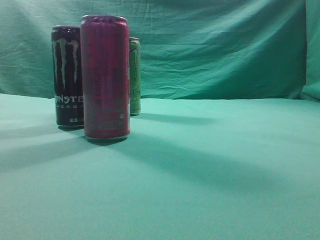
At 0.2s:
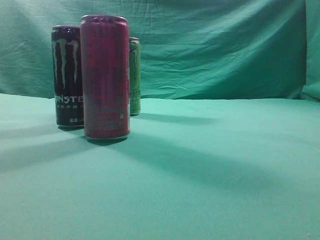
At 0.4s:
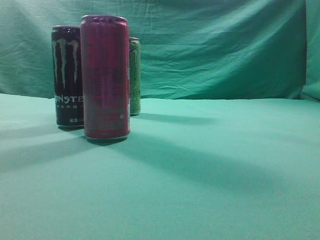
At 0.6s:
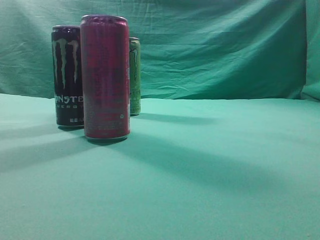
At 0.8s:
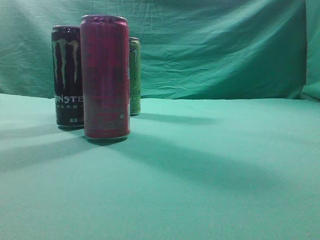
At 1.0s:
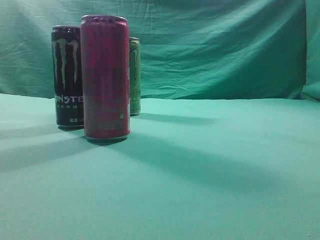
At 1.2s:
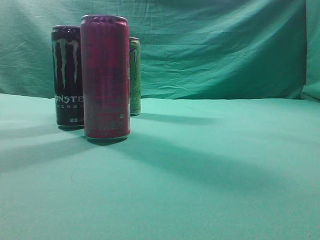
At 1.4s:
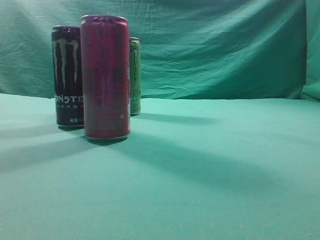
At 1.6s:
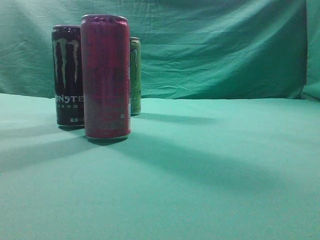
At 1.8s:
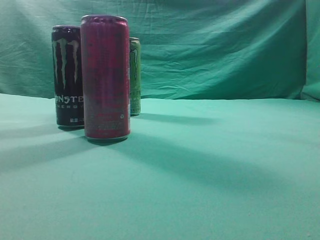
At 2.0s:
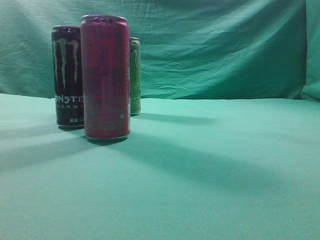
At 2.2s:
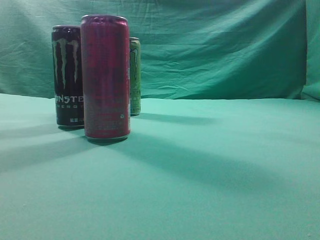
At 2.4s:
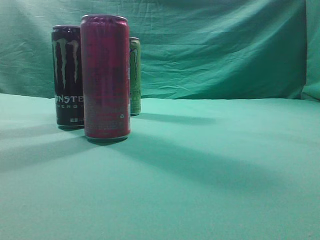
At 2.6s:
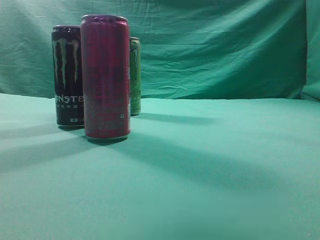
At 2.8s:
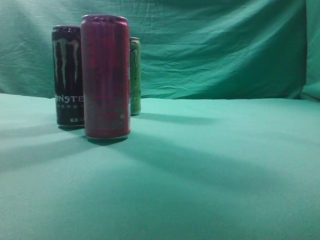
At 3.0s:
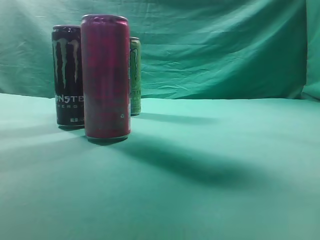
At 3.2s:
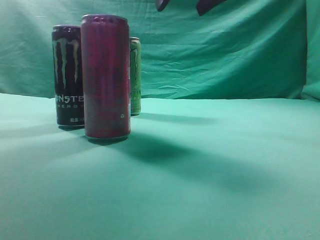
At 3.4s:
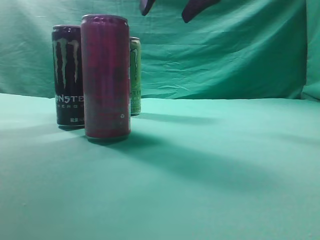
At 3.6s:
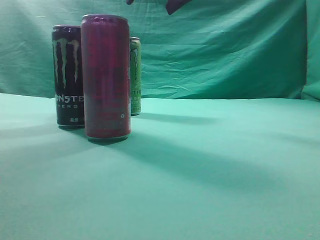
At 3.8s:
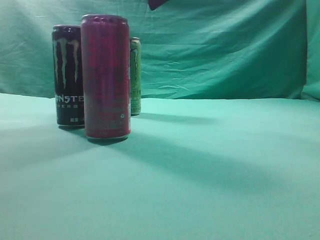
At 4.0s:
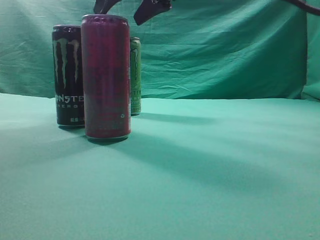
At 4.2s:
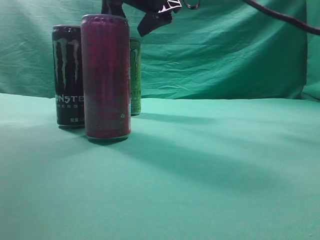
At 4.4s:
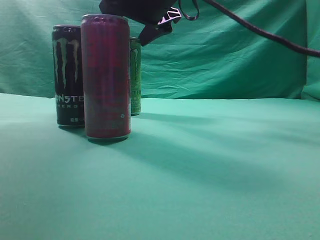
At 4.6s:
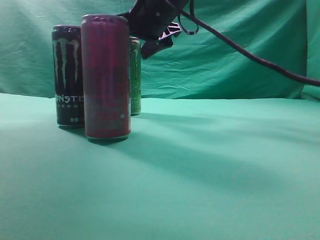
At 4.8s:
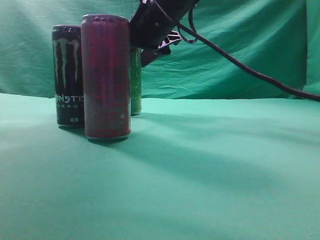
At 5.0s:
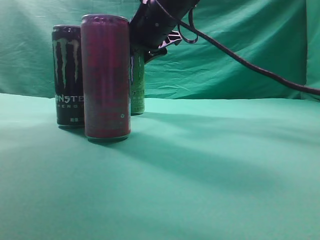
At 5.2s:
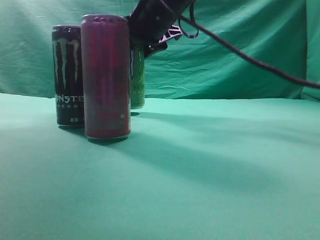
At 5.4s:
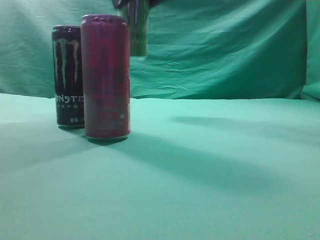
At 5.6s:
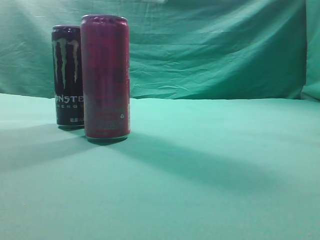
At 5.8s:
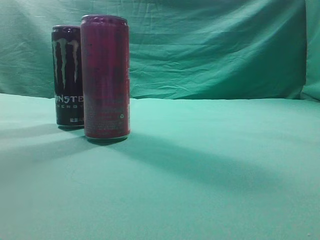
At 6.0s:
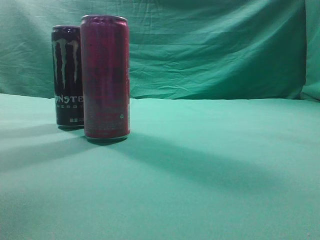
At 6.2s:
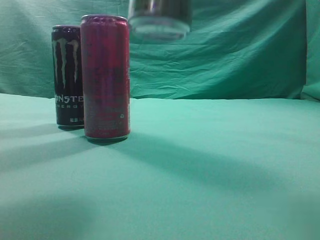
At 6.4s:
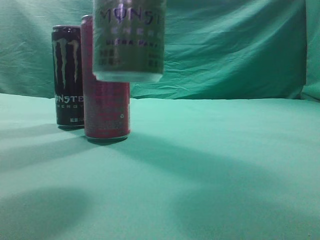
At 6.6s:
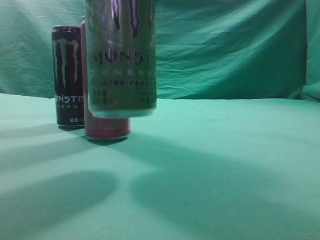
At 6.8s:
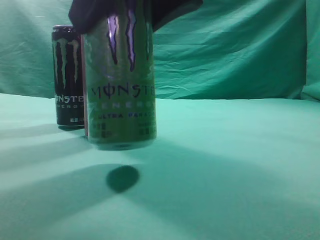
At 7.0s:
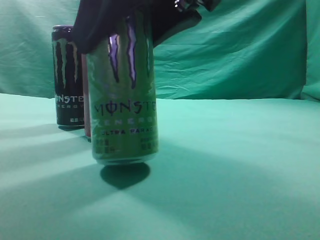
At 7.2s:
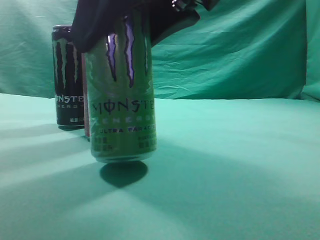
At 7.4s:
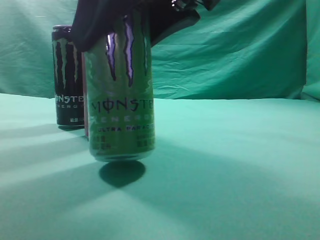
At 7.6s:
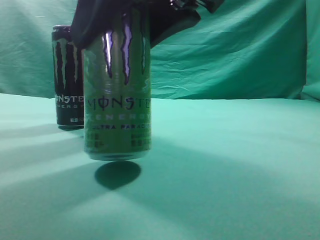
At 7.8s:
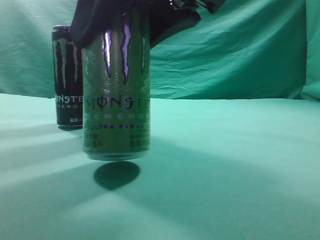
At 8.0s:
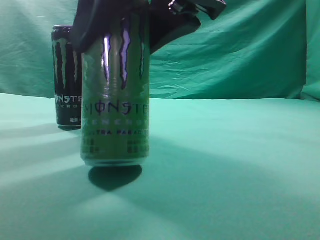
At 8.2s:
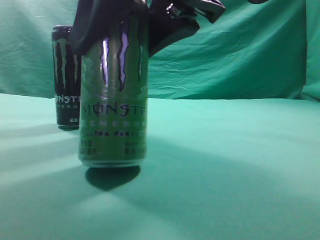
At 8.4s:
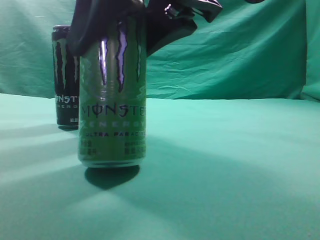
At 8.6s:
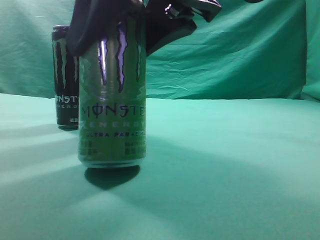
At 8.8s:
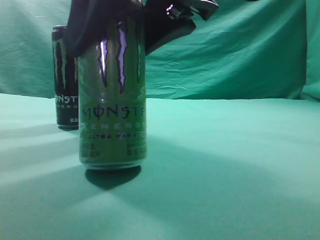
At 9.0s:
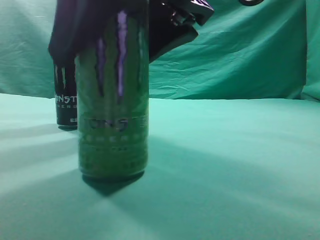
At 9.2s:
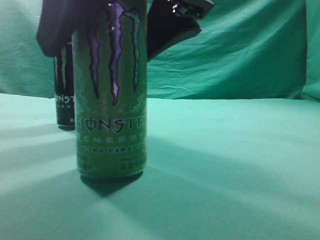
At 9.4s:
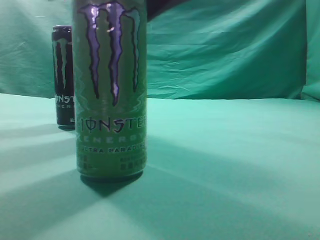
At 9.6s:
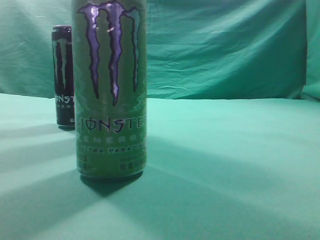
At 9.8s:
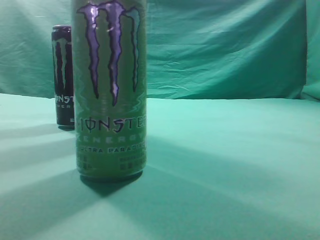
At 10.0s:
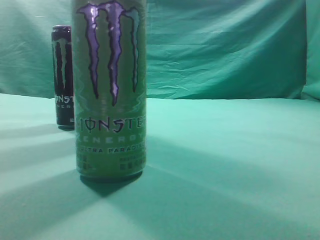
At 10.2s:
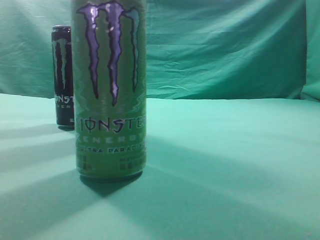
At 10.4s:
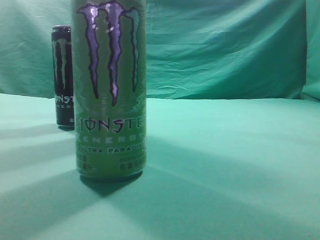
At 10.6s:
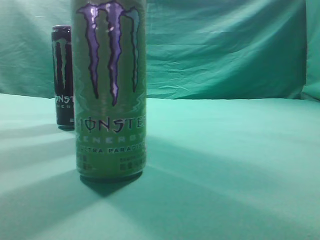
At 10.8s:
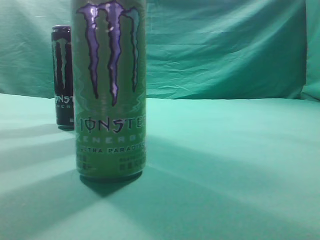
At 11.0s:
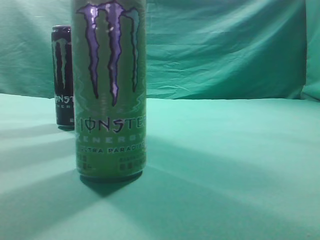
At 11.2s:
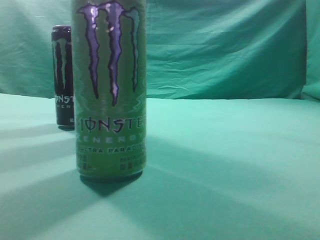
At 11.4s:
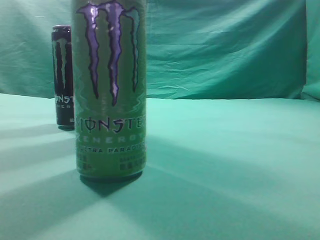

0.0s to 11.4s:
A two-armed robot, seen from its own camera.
Task of the whole recording: move one drink among three beverages.
Step, 0.0s to 5.2s: Grasp the beverage bottle placed at the back of the desk.
Step, 5.4s to 9.4s: Place the beverage bottle to the front of the table.
1.4s to 2.8s: The right gripper is displaced forward, to the left and upward by approximately 25 cm.
2.8s to 4.2s: The right gripper heads forward and to the left, covering roughly 20 cm, and opens up.
4.2s to 5.6s: The right gripper moves upward, to the right and backward, about 15 cm.
5.6s to 7.2s: The right gripper moves downward and backward, about 25 cm.
7.2s to 8.6s: The grippers stay close to where they were, moving slightly.
8.6s to 10.0s: The right gripper goes roughly 20 cm upward and to the right, and closes its fingers.
